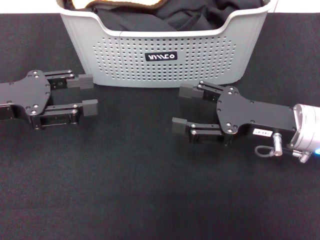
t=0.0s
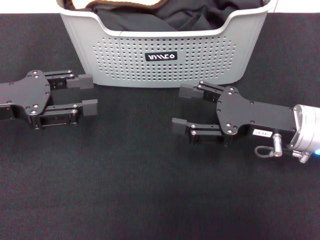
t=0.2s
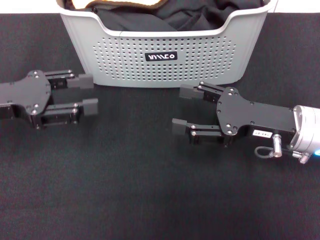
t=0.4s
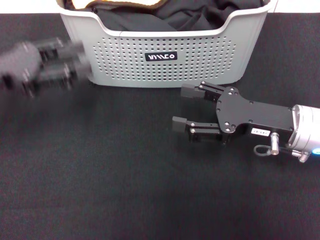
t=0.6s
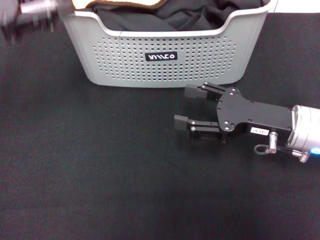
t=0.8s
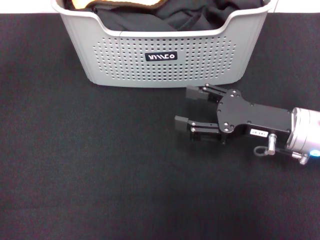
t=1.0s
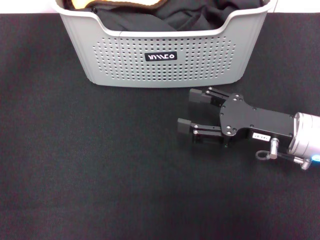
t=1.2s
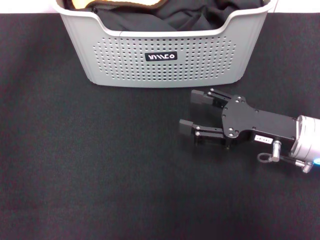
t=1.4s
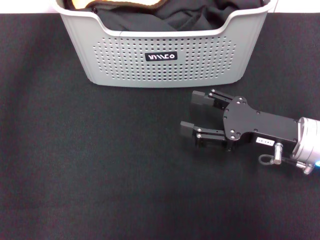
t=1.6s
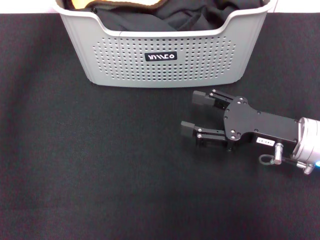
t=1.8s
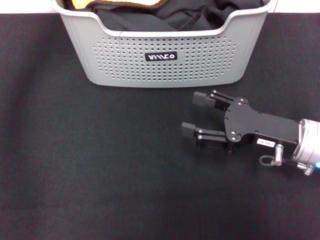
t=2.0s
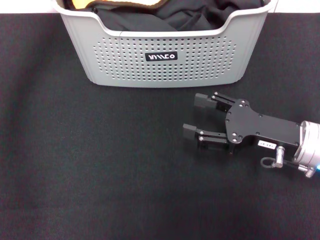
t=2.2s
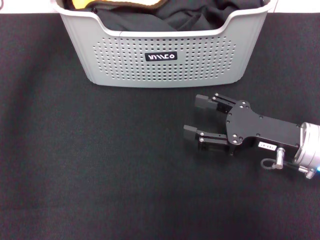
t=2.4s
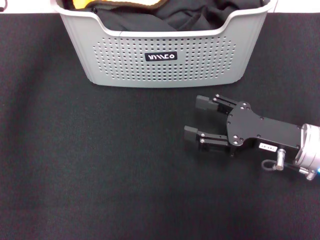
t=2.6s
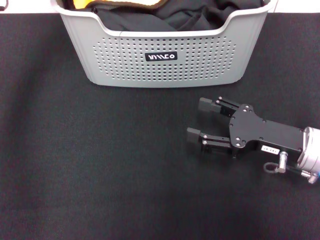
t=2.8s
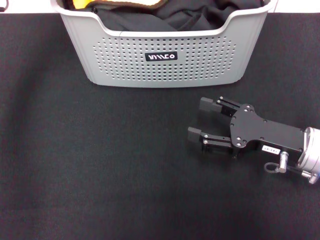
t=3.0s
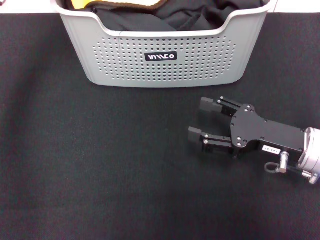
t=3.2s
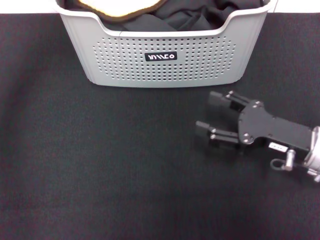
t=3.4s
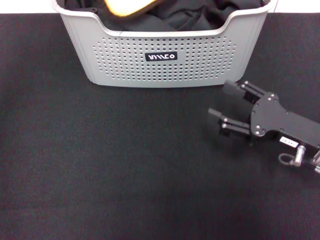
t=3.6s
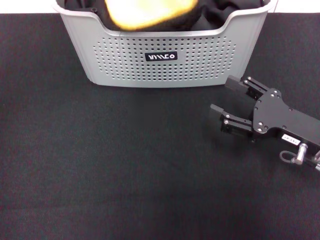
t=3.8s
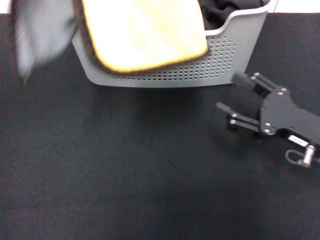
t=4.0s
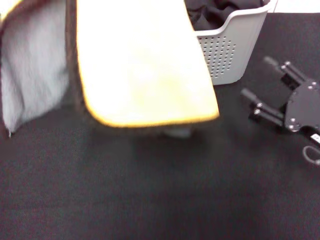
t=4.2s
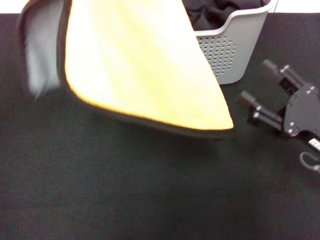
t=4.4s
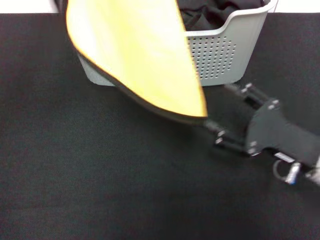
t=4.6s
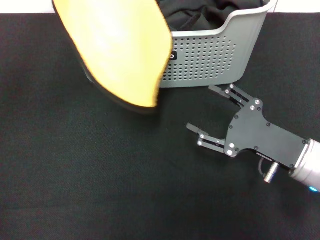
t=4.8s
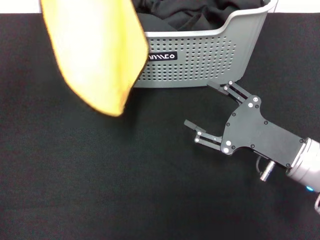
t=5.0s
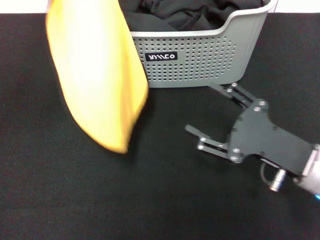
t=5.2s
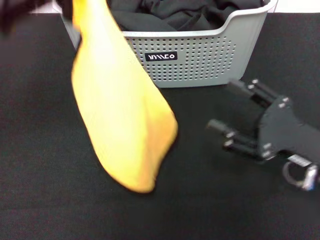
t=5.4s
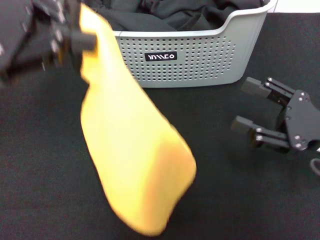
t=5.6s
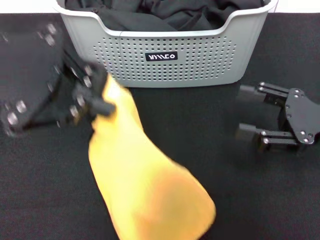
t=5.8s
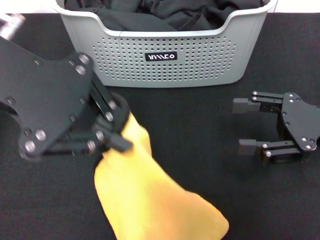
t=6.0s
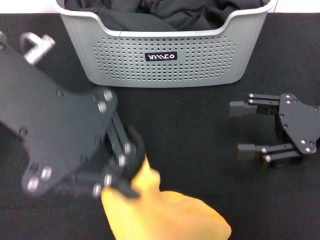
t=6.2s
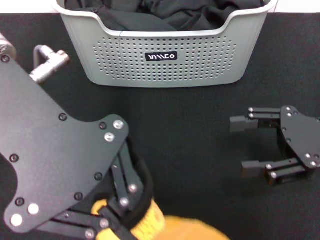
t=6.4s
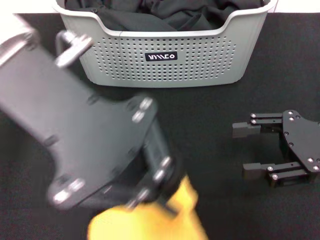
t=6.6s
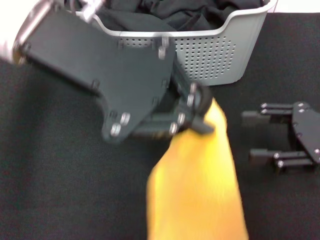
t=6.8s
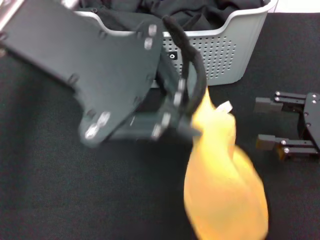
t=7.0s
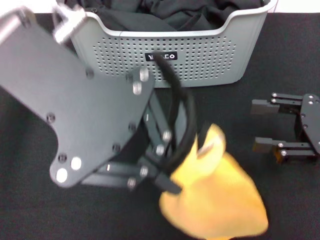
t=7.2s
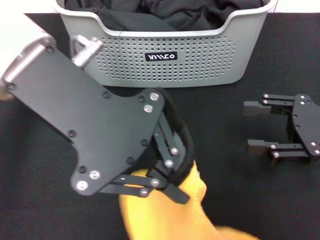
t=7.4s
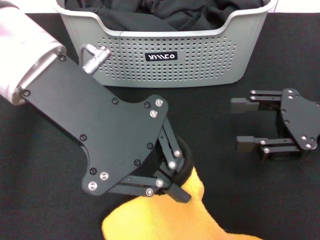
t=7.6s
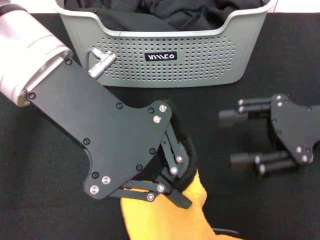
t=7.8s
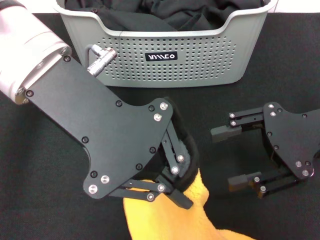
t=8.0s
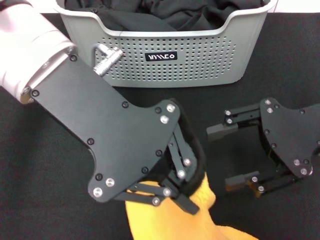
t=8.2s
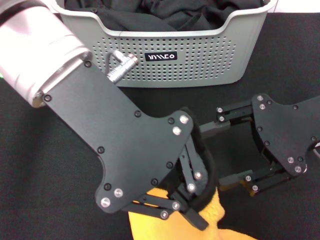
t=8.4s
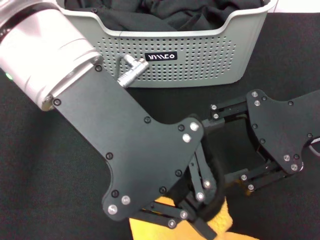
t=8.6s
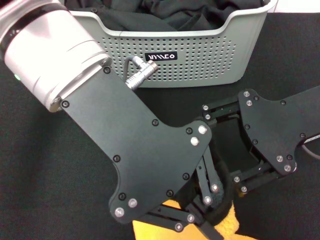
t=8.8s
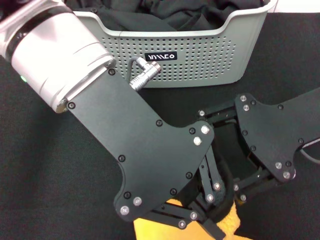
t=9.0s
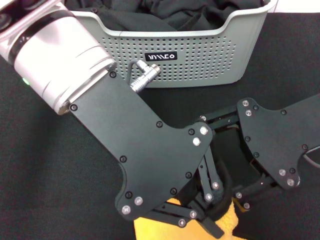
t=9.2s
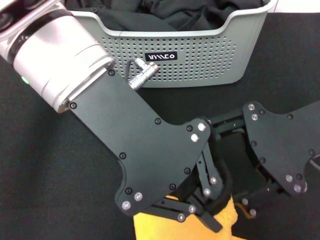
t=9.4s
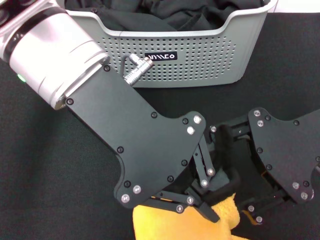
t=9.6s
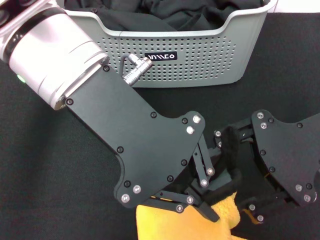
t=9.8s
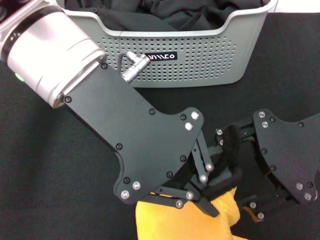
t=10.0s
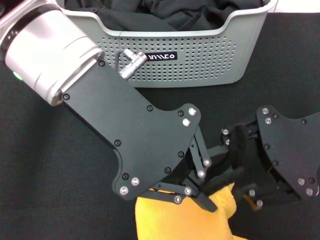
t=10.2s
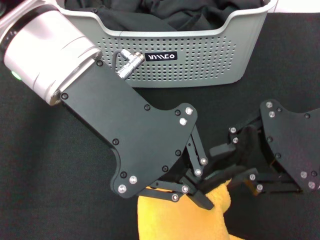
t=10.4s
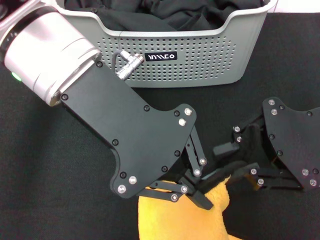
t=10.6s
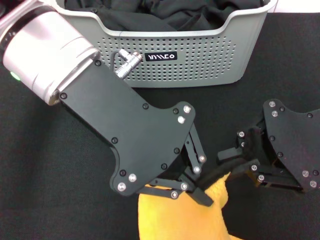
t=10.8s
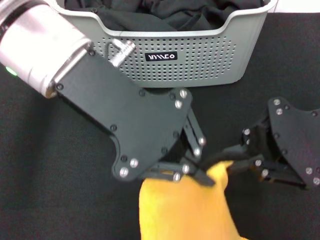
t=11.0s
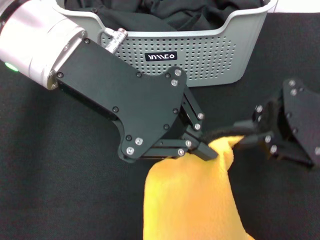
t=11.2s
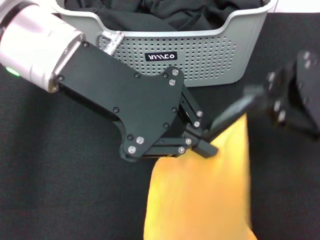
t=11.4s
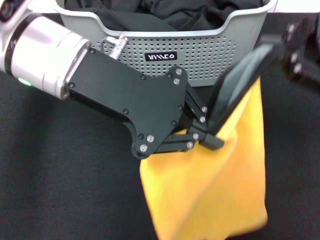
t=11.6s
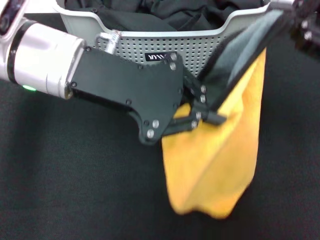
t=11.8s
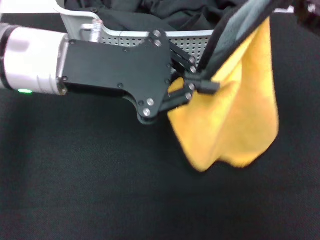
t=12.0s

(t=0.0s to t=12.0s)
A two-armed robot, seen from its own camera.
Task of the whole recording: pick up the towel from the storage box and lay it flat on the black tablecloth.
Step, t=0.0s - t=3.0s: Pick up a towel with the left gripper.
Step, t=3.2s - t=10.2s: Spread the towel flat with the left gripper.
t=0.0s - t=1.6s: The left gripper is displaced forward and upward by about 15 cm.
t=1.6s - t=3.0s: The left gripper closes.
t=3.0s - t=4.4s: The right gripper changes place by some 5 cm; the left gripper shifts some 15 cm backward and upward.
t=4.4s - t=6.0s: The right gripper travels upward by about 5 cm. Meanwhile the left gripper changes place by some 5 cm.
t=6.0s - t=7.6s: The left gripper heads to the right, covering some 5 cm.
t=7.6s - t=9.0s: The right gripper goes some 10 cm to the left and upward.
t=10.4s - t=12.0s: The right gripper shifts roughly 5 cm upward, and closes its fingers. The left gripper travels downward by roughly 5 cm.

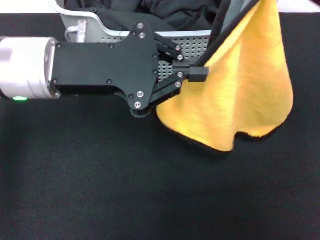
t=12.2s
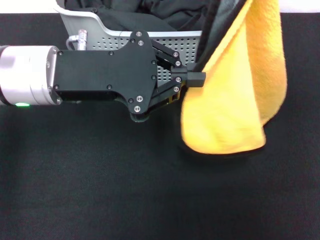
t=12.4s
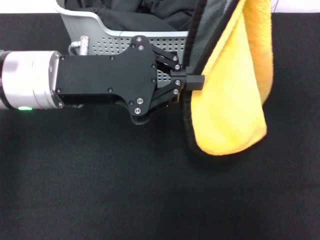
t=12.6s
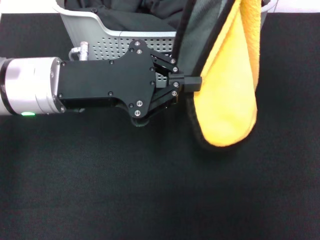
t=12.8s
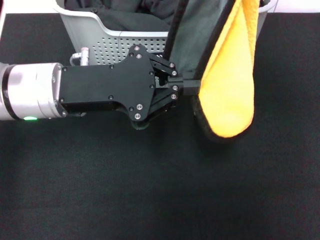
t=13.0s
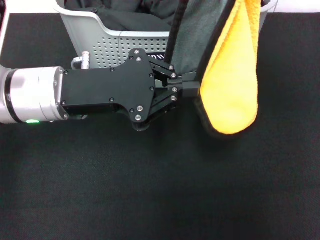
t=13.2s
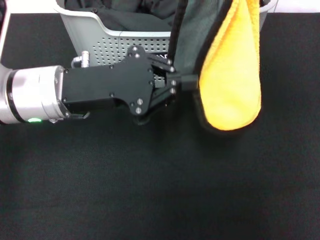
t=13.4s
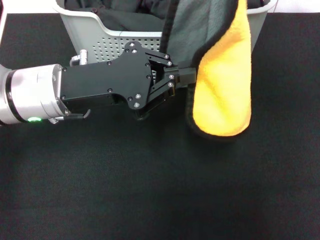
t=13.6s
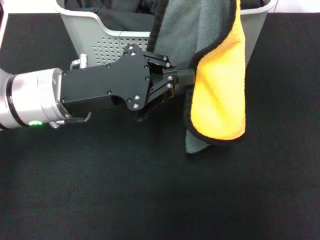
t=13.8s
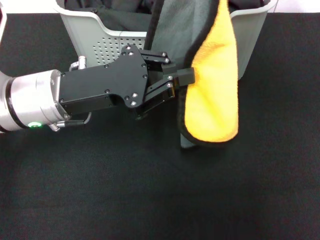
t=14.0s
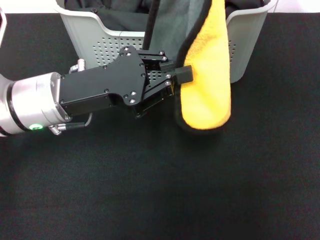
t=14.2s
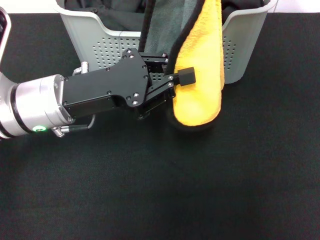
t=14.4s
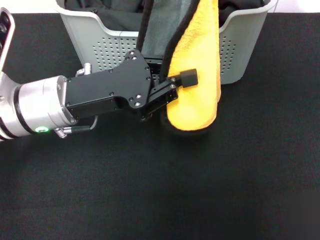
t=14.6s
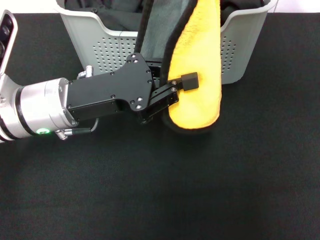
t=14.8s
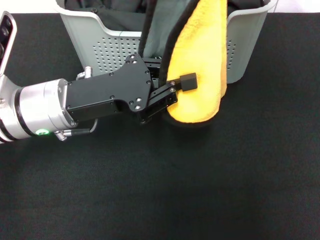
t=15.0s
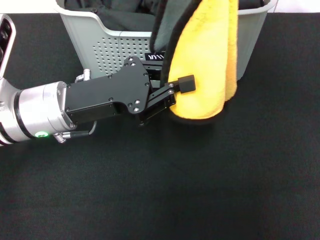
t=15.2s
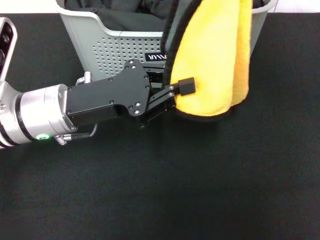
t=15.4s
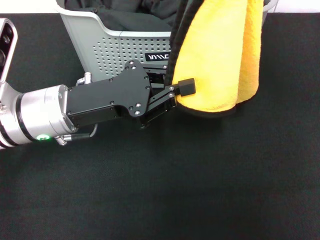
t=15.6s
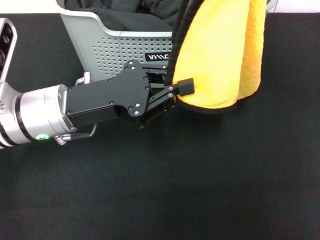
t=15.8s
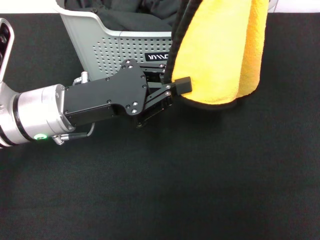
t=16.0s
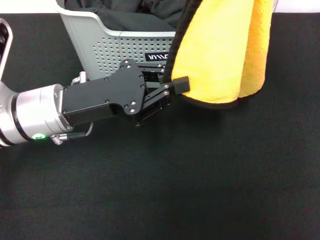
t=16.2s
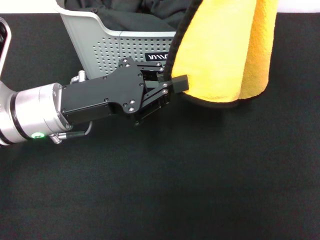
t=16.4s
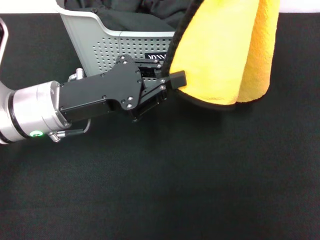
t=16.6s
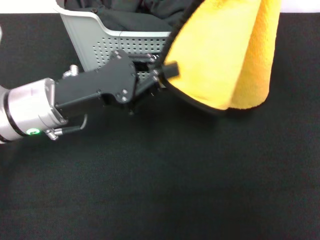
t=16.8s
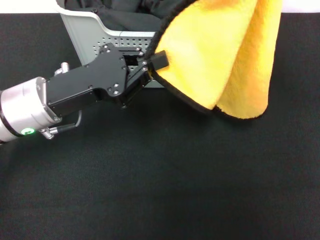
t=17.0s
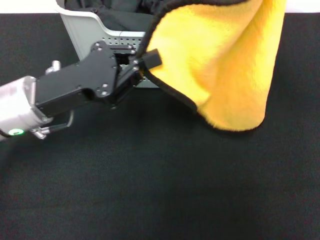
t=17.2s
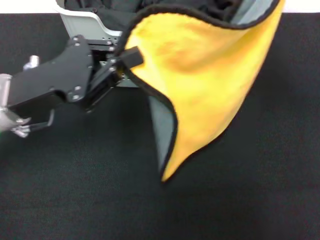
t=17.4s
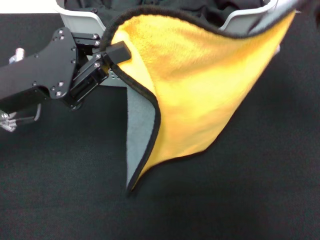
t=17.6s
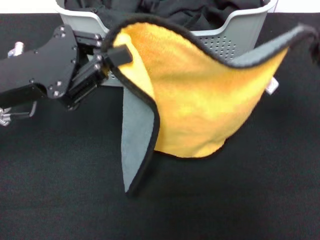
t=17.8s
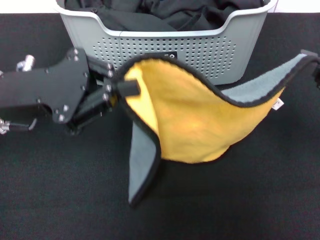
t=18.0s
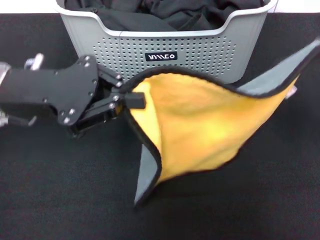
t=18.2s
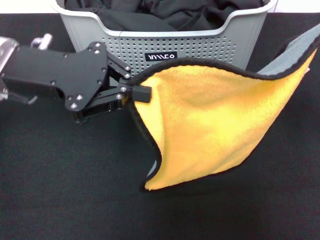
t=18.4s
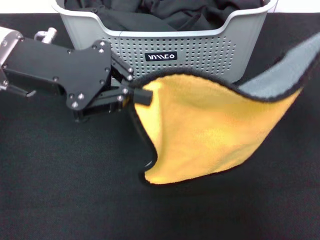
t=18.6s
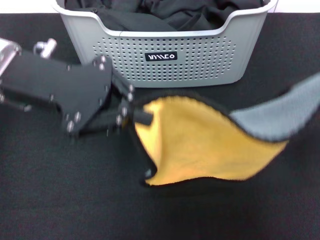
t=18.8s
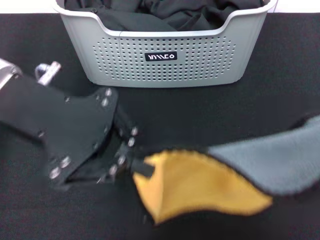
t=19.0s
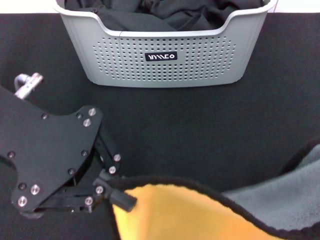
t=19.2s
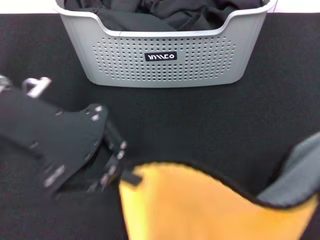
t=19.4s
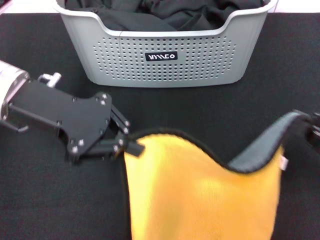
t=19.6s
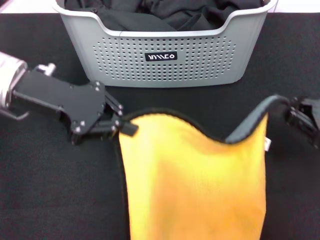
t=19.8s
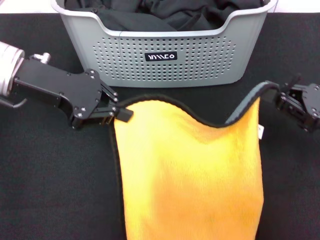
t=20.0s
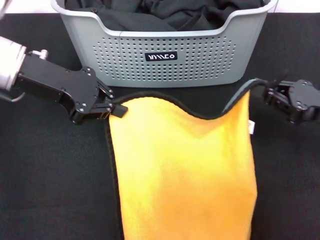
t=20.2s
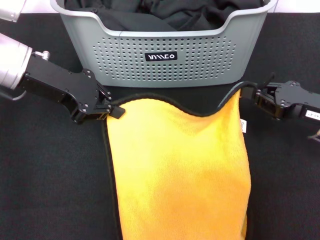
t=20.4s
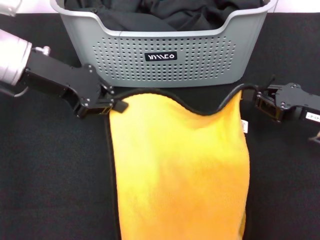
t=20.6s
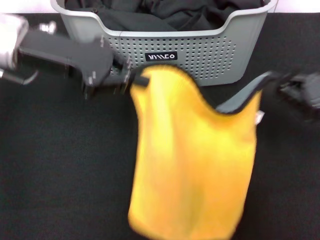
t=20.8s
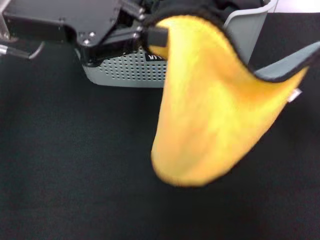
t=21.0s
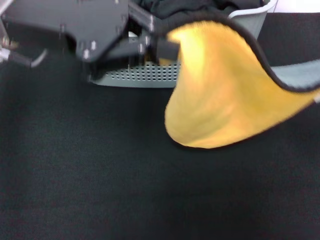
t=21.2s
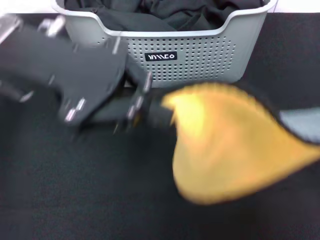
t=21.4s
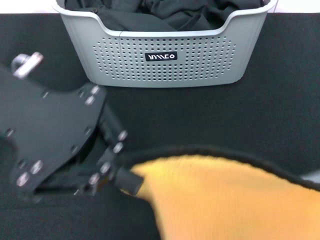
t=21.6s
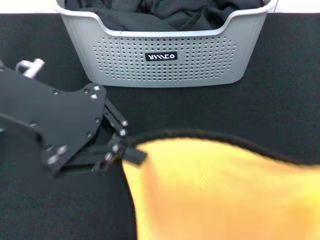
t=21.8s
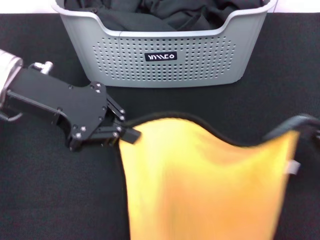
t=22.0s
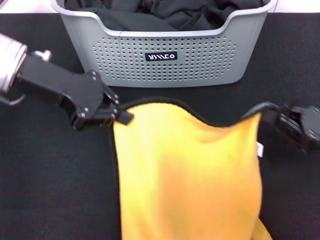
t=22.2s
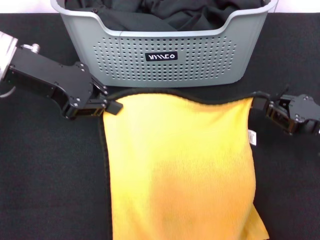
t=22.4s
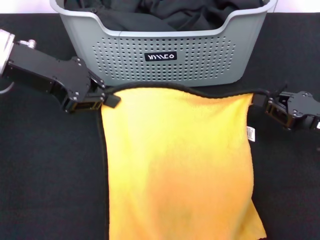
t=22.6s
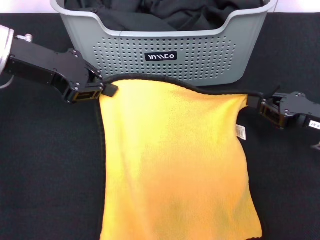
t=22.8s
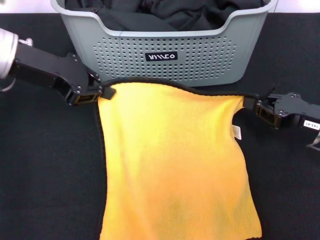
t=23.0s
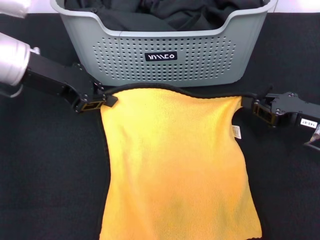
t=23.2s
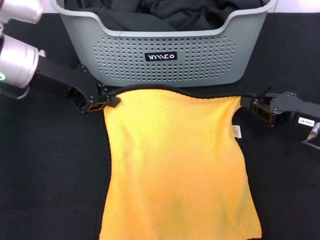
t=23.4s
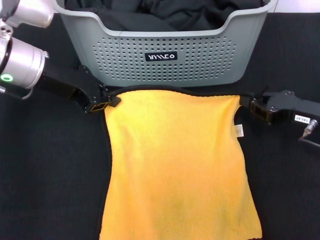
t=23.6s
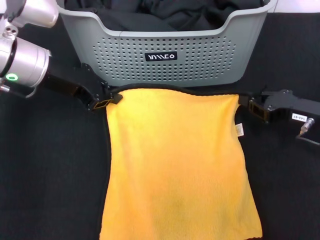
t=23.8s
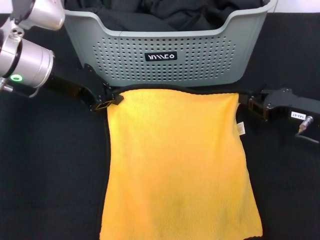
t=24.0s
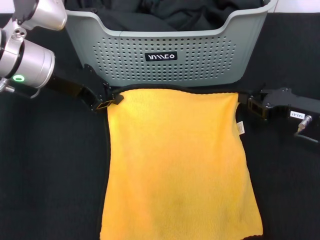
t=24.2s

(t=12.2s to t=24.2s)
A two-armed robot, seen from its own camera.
Task of the whole recording: pick up the towel from the storage box and lay it flat on the black tablecloth.
t=12.2s - t=13.8s: The left gripper shifts some 5 cm downward.
t=15.2s - t=16.6s: The grippers make only small movements.
t=16.6s - t=18.2s: The left gripper moves upward, approximately 5 cm, while the right gripper moves downward and to the right, about 15 cm.
t=18.2s - t=19.8s: The right gripper heads downward, covering about 10 cm, and moves roughly 15 cm backward and comes back.
t=19.8s - t=21.2s: The two grippers go approximately 5 cm upward. The right gripper travels forward and back again, some 5 cm each way.
t=21.2s - t=22.6s: The left gripper shifts some 5 cm downward, and reaches some 5 cm backward, then returns; the right gripper heads downward and to the left, covering roughly 10 cm, and moves some 10 cm backward and comes back.
t=22.6s - t=24.2s: The left gripper shifts approximately 5 cm downward. Meanwhile the right gripper ends up about 5 cm from where it was.
